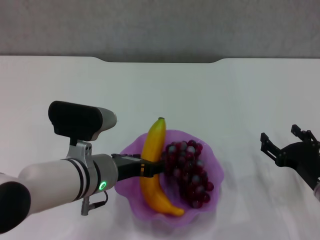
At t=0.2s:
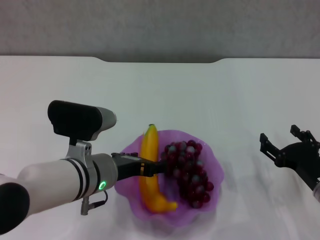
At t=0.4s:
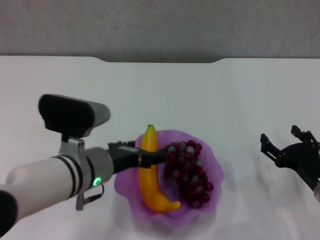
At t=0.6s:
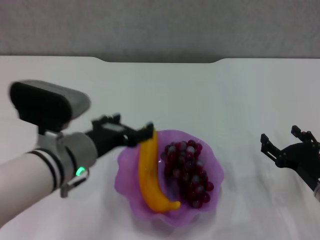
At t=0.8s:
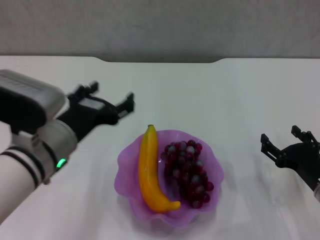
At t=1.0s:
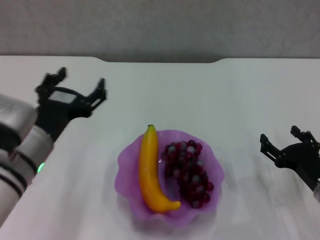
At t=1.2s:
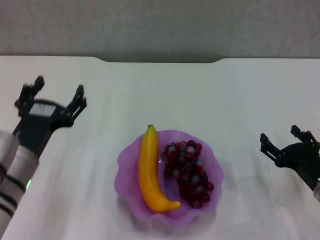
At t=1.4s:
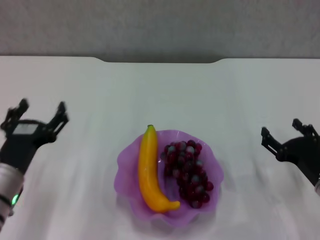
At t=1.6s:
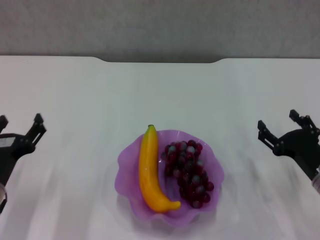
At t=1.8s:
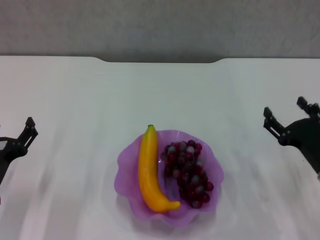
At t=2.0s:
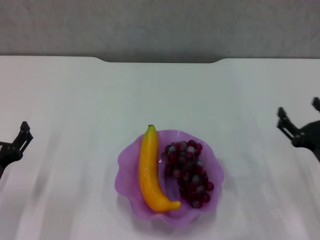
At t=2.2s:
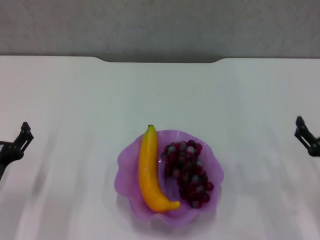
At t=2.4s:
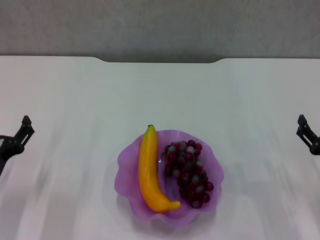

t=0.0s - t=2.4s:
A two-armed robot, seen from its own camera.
t=0.0s - t=1.2s: The left gripper heads to the left, covering about 10 cm, and opens its fingers.
t=1.2s - t=2.4s: The left gripper is displaced to the left and downward by roughly 10 cm.

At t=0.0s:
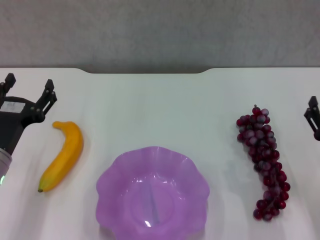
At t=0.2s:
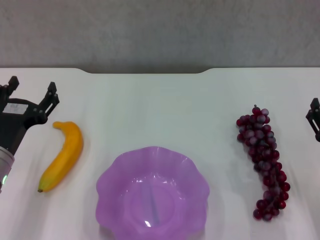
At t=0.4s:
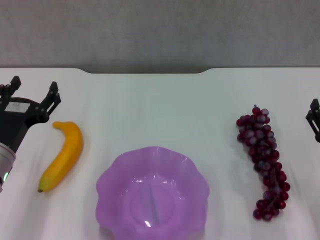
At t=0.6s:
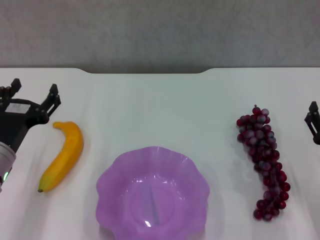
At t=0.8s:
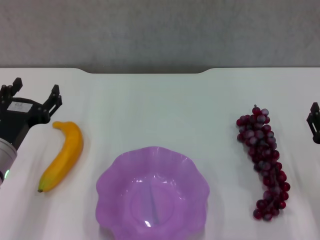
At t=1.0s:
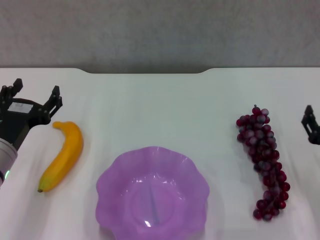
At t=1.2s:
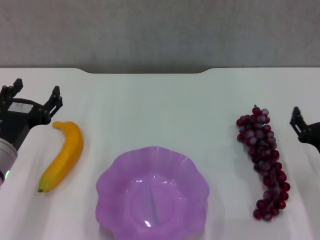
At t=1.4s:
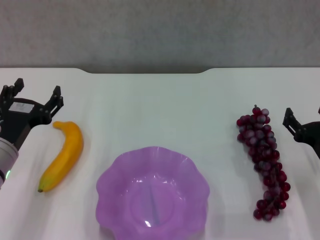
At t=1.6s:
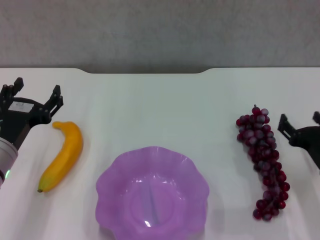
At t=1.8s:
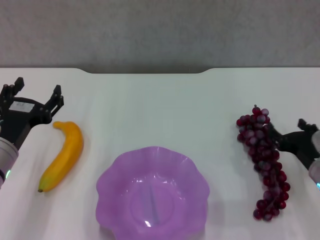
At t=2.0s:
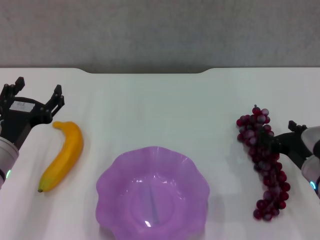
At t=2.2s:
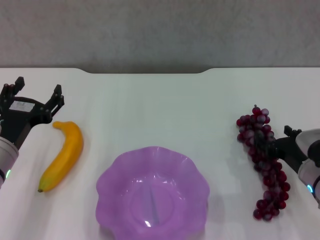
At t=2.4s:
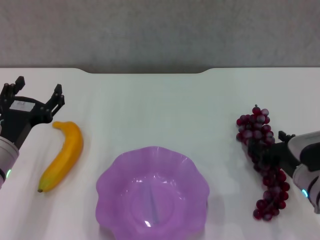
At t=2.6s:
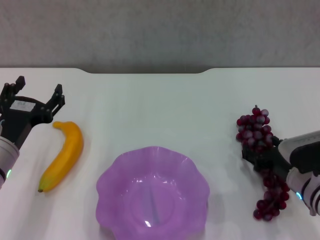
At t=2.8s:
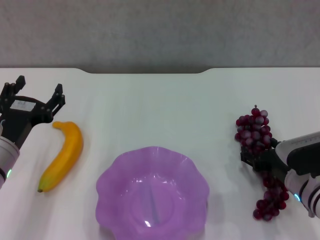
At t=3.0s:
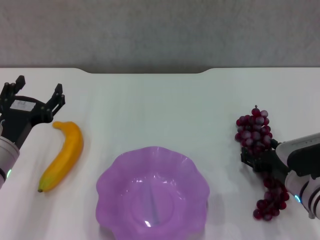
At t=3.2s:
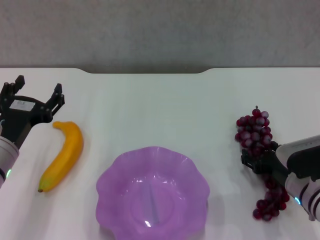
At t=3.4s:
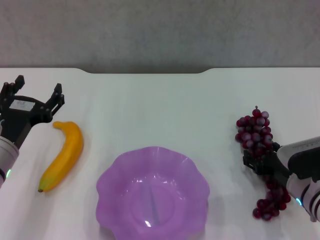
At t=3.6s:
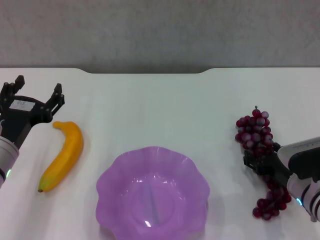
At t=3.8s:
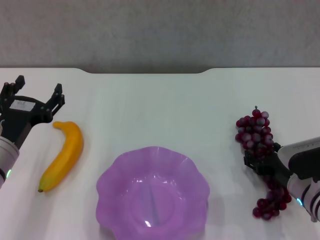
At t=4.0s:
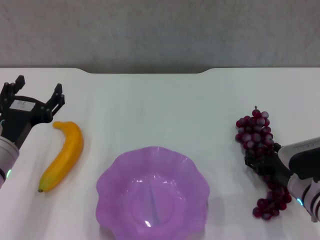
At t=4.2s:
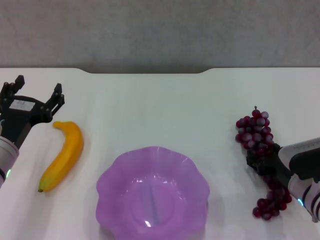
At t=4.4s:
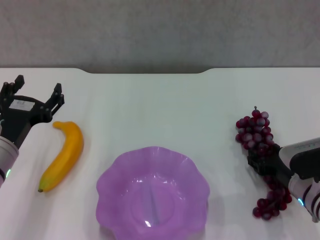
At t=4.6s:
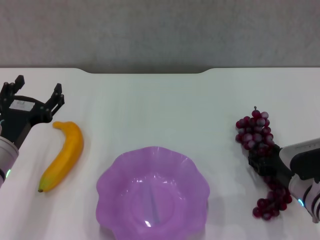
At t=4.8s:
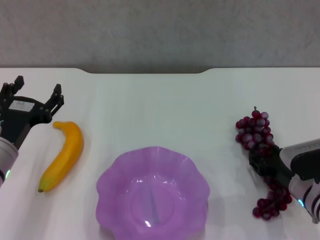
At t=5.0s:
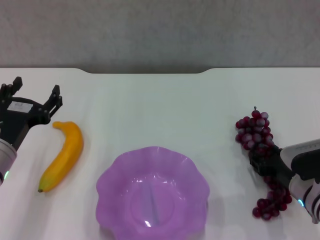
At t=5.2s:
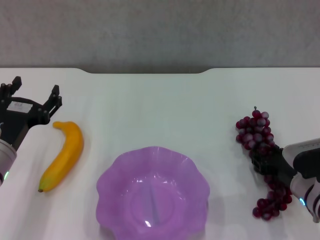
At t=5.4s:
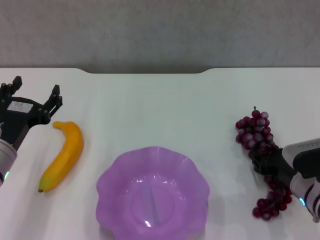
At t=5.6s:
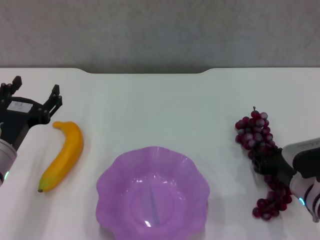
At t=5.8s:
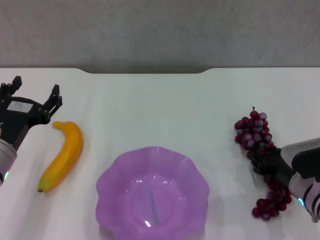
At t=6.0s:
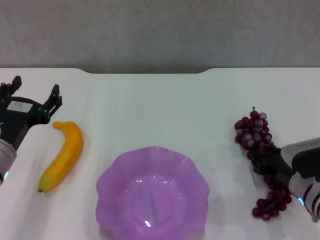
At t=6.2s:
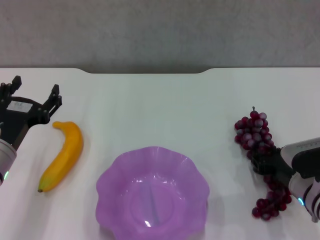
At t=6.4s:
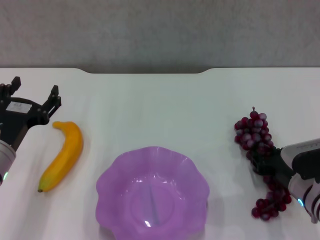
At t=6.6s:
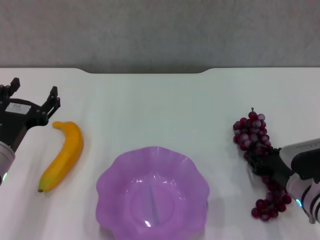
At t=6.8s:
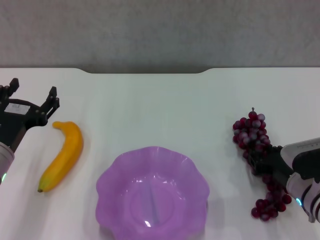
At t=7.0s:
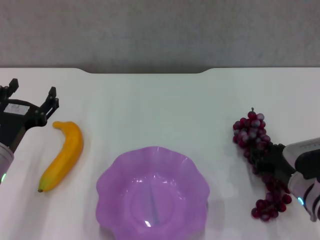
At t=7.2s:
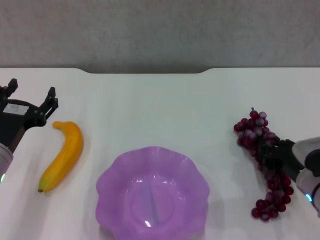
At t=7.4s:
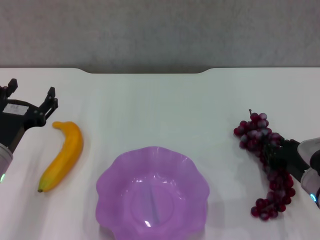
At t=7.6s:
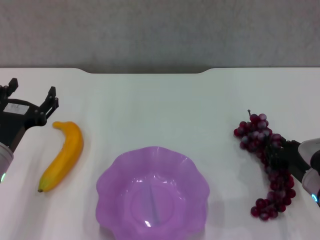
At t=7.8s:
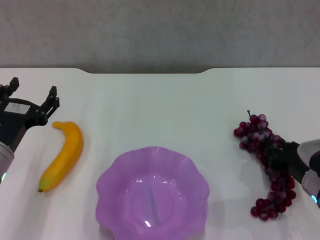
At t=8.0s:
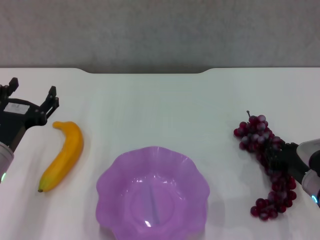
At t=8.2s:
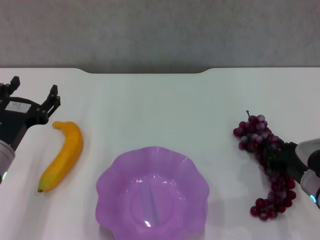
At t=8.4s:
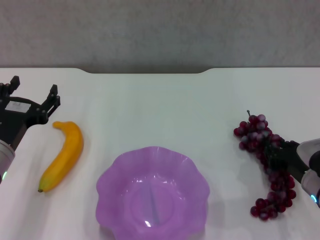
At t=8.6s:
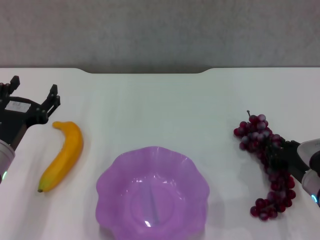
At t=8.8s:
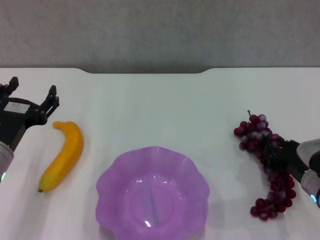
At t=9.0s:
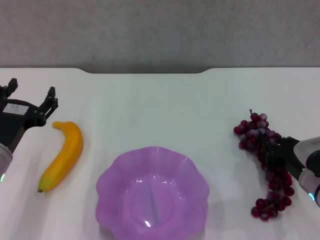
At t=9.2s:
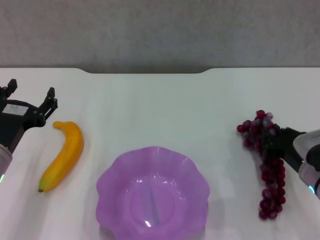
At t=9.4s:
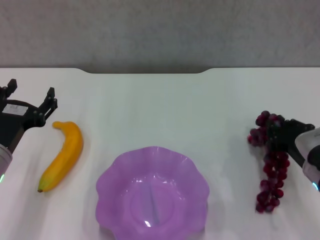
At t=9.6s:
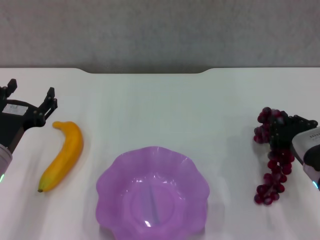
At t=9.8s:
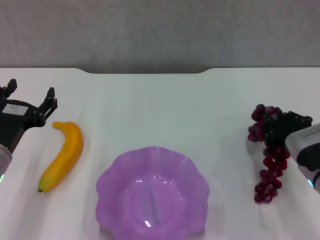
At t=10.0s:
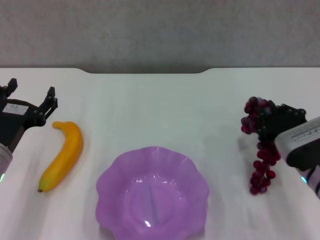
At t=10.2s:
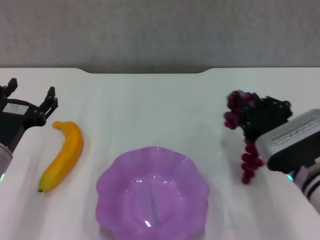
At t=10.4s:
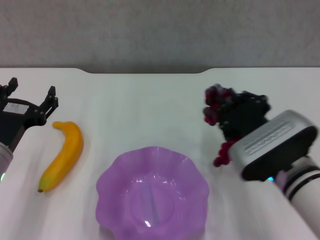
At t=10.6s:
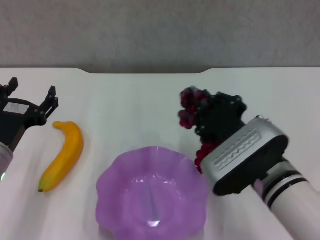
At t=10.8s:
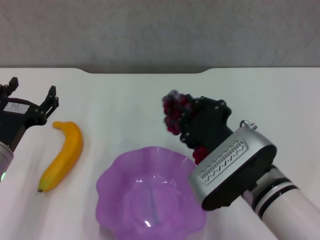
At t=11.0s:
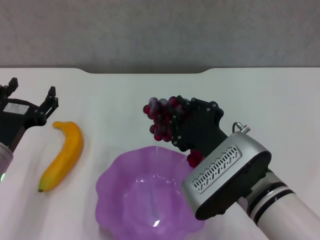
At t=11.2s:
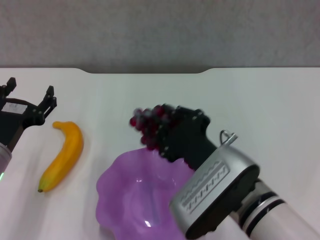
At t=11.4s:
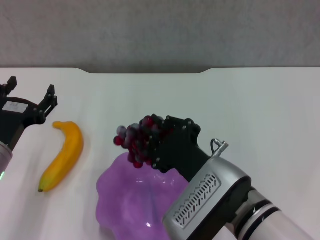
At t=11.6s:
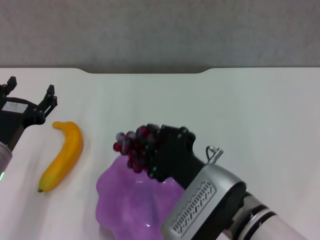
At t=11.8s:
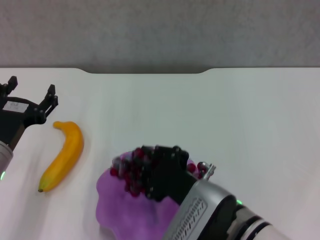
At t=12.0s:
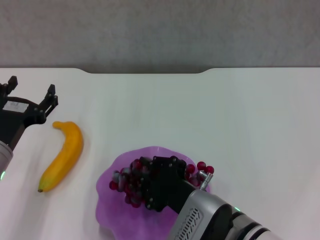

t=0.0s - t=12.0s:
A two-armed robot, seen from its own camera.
Step, t=0.0s - t=7.8s: Grasp the grape with right gripper.
t=1.6s - t=3.0s: The grippers make only small movements.
t=3.0s - t=6.0s: Both grippers stay about where they are.
t=6.0s - t=7.6s: The grippers make only small movements.
t=7.6s - t=9.0s: The two grippers keep their place.
t=9.0s - t=10.4s: The right gripper shifts approximately 10 cm to the left and upward.
t=10.4s - t=12.0s: The right gripper is displaced to the left and backward by about 10 cm.

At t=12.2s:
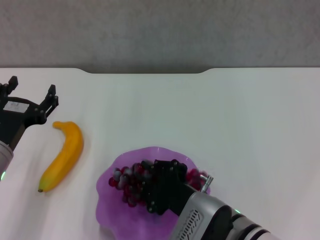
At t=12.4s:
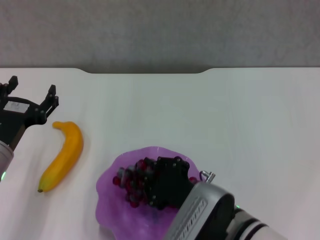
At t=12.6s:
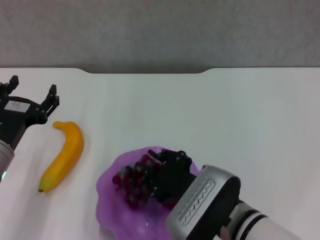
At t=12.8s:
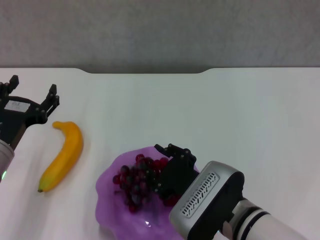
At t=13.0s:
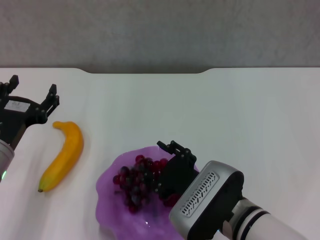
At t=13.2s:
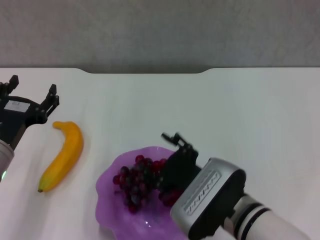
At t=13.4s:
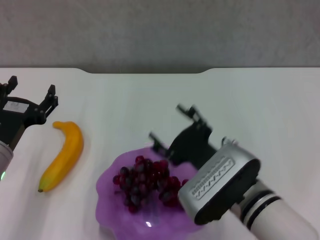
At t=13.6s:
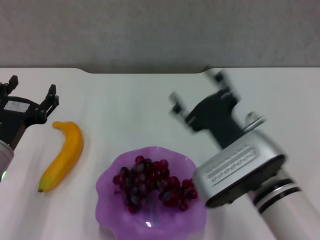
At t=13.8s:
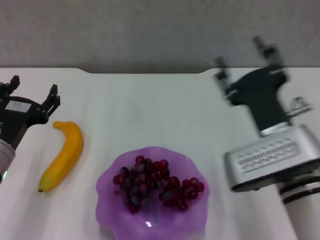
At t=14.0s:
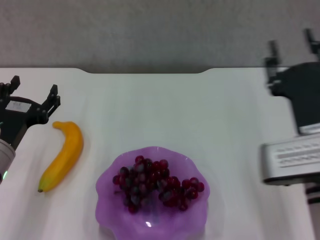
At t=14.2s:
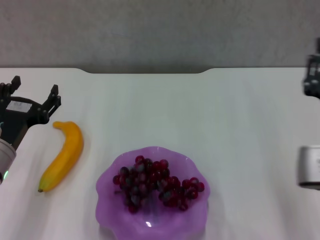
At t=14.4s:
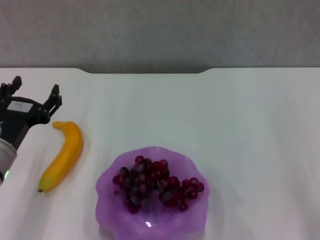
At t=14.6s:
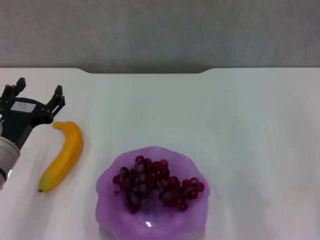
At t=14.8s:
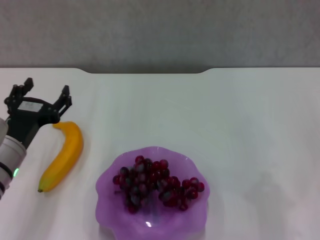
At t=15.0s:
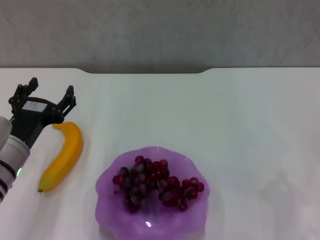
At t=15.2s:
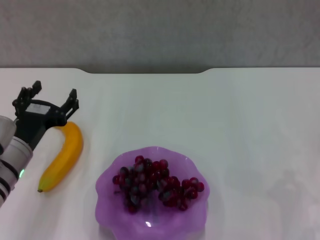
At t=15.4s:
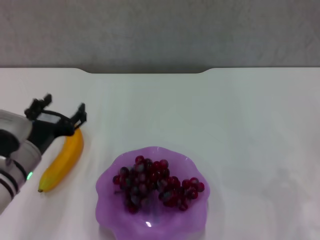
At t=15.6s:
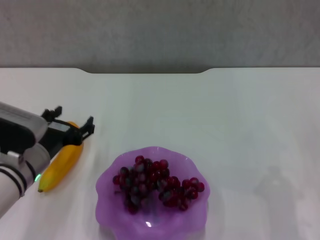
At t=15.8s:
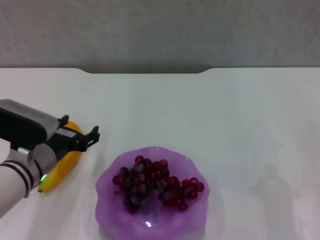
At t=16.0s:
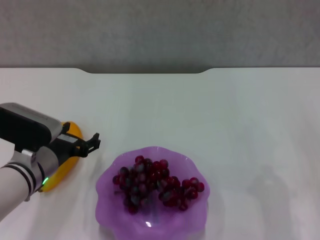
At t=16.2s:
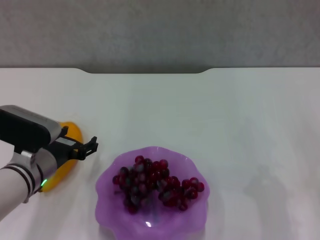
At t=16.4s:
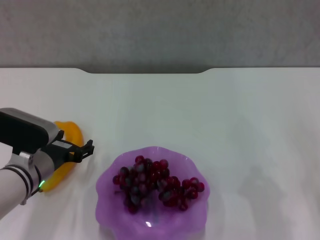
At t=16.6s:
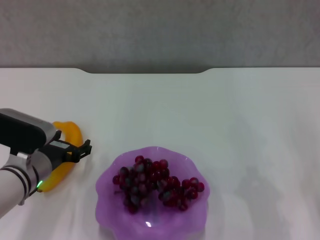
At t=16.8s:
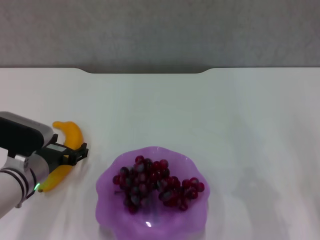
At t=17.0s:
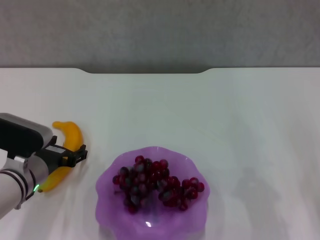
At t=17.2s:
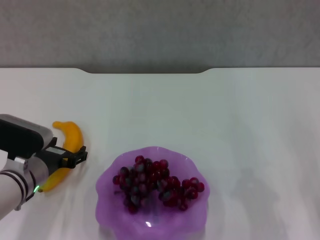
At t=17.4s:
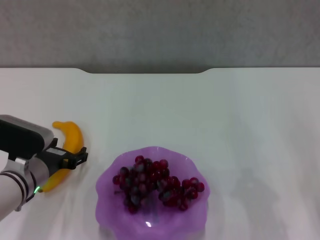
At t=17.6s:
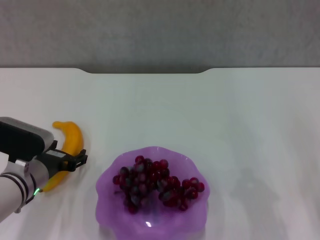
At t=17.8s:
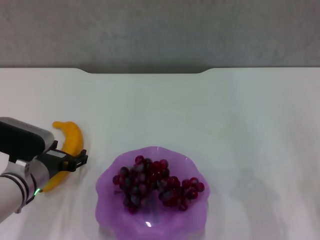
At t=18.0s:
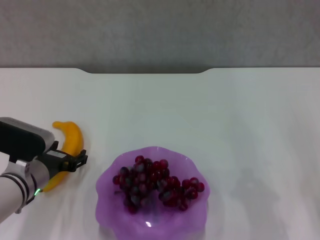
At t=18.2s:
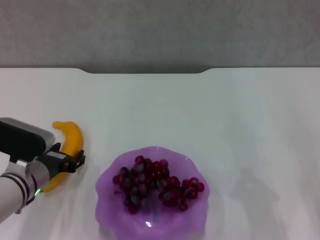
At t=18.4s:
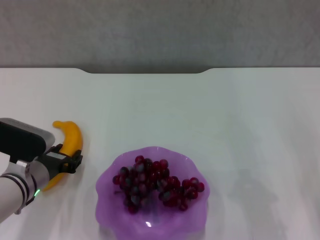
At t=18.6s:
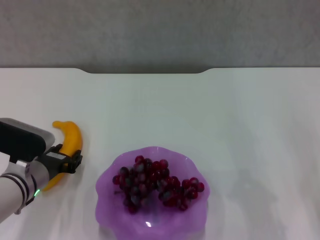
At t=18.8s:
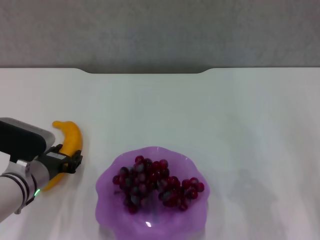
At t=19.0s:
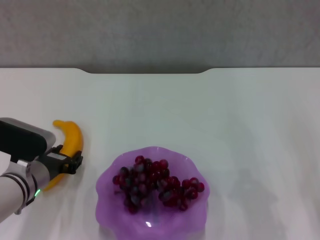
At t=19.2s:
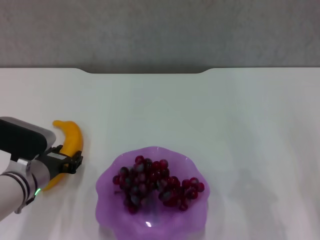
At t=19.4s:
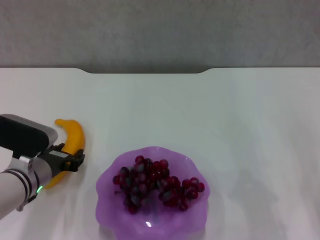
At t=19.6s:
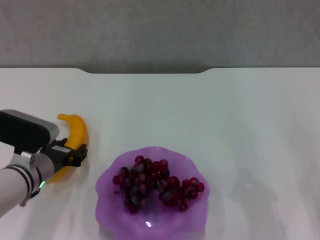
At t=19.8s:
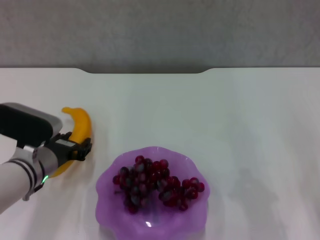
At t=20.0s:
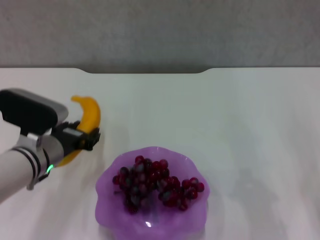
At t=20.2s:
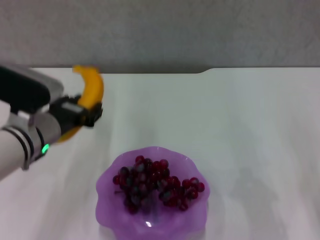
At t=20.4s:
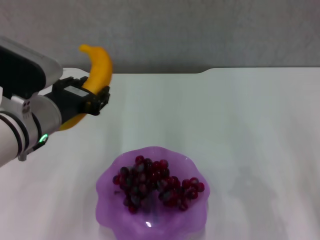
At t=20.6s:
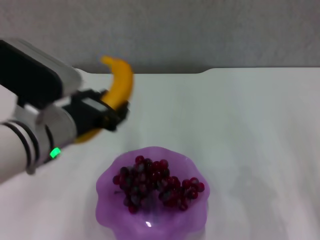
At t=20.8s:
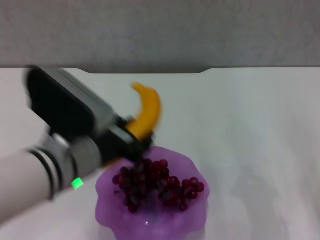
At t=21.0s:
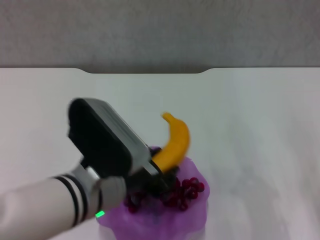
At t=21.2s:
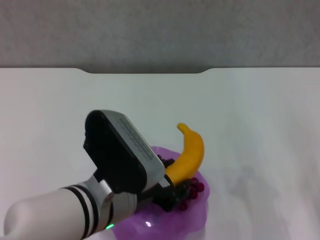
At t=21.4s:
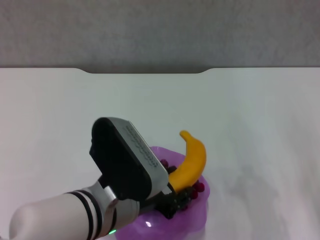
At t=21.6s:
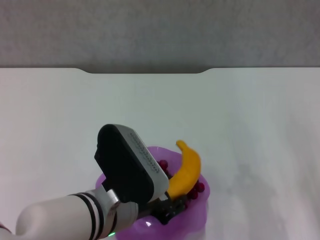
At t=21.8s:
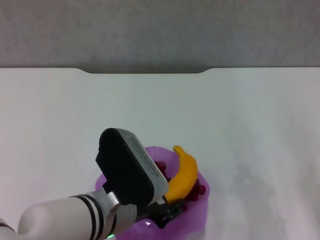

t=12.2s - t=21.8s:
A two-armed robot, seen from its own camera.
Step, t=13.4s - t=18.6s: Grasp the banana with left gripper.
t=12.2s - t=13.8s: The right gripper goes roughly 10 cm to the right and forward, and opens.
t=13.8s - t=15.4s: The right gripper is displaced to the right and downward by roughly 20 cm, and closes up.
t=17.0s - t=18.6s: The left gripper closes up.
t=18.6s - t=20.2s: The left gripper travels upward by roughly 10 cm.
t=20.2s - t=21.8s: The left gripper shifts about 15 cm to the right and backward.
